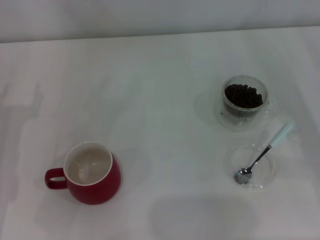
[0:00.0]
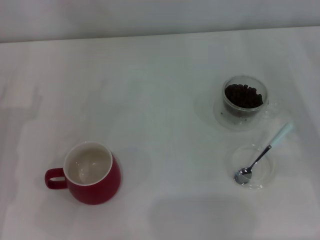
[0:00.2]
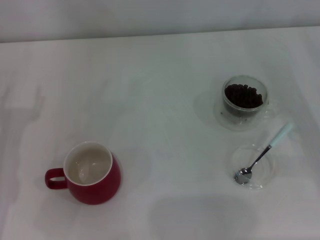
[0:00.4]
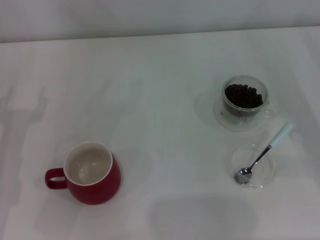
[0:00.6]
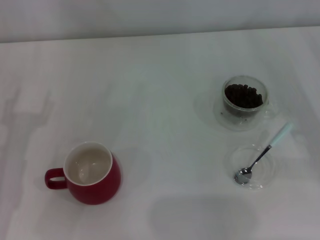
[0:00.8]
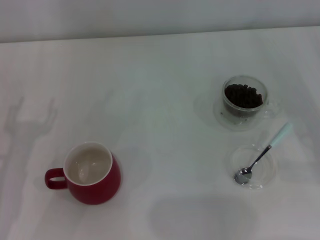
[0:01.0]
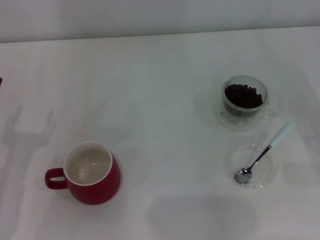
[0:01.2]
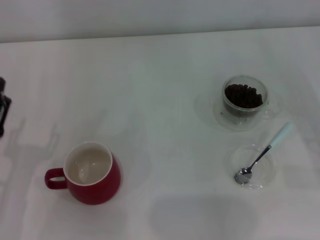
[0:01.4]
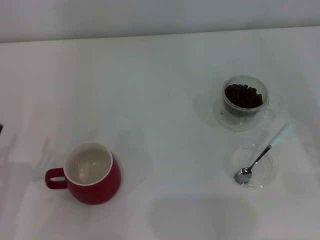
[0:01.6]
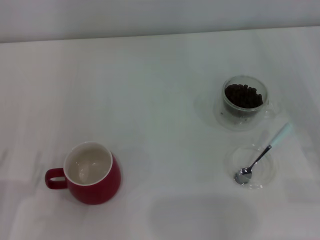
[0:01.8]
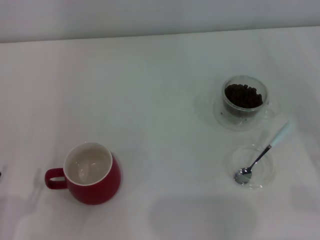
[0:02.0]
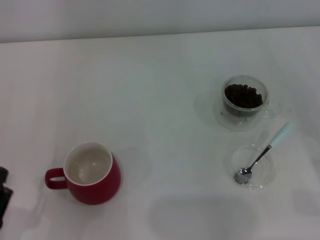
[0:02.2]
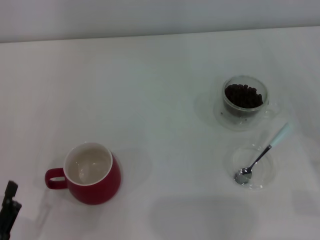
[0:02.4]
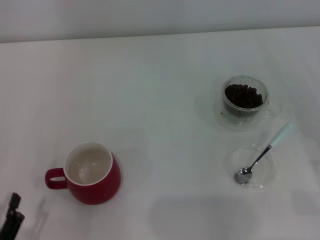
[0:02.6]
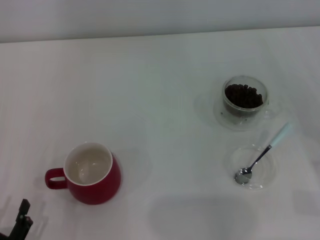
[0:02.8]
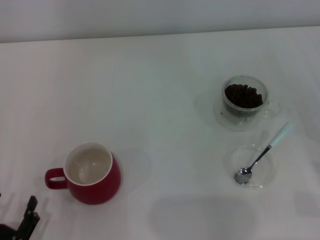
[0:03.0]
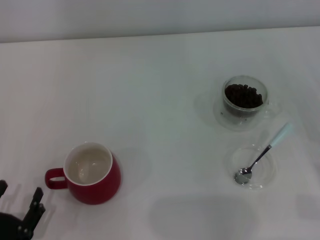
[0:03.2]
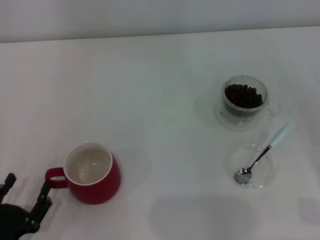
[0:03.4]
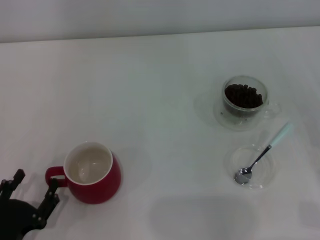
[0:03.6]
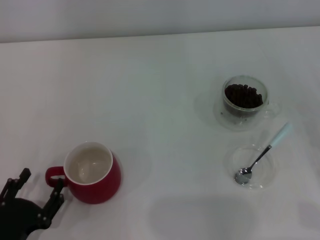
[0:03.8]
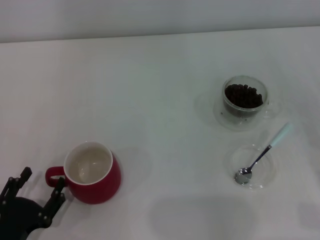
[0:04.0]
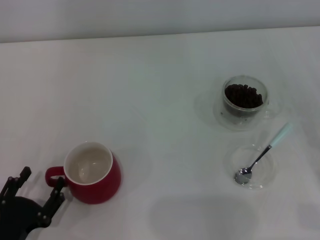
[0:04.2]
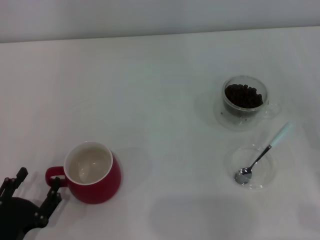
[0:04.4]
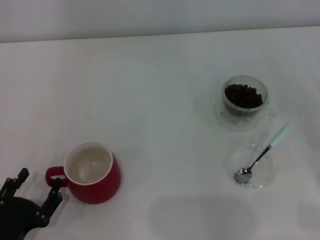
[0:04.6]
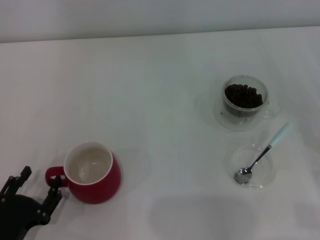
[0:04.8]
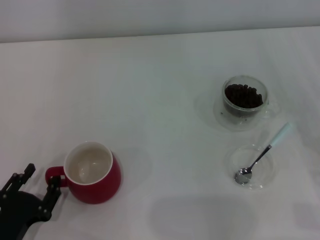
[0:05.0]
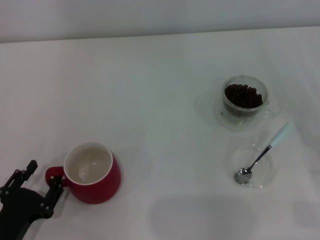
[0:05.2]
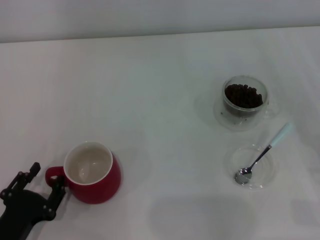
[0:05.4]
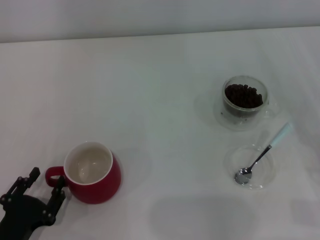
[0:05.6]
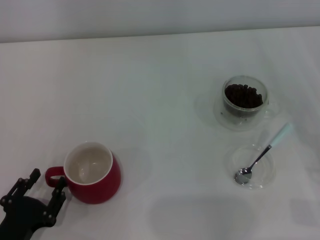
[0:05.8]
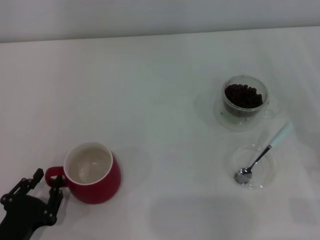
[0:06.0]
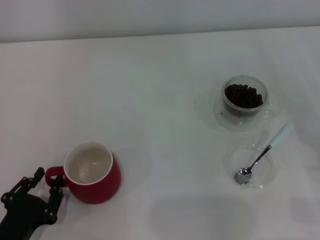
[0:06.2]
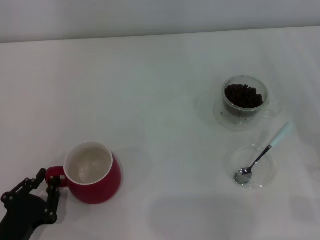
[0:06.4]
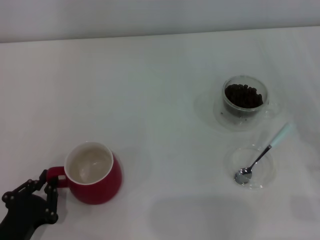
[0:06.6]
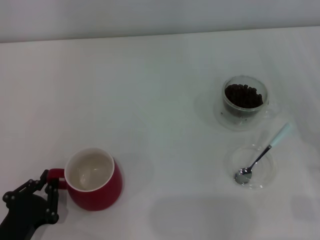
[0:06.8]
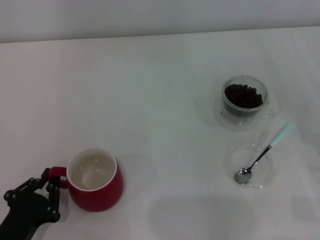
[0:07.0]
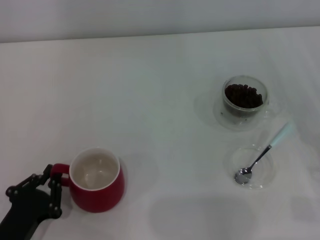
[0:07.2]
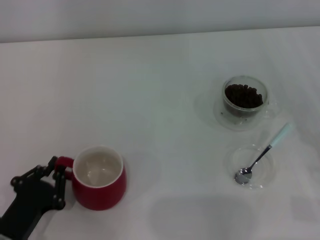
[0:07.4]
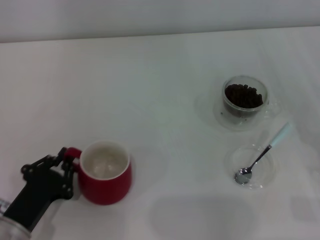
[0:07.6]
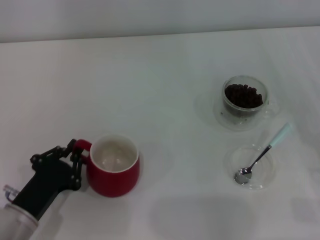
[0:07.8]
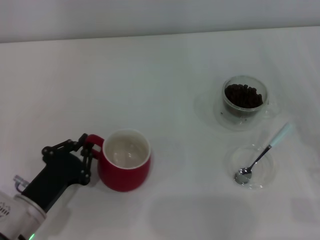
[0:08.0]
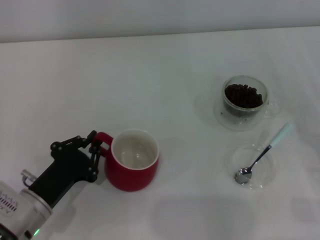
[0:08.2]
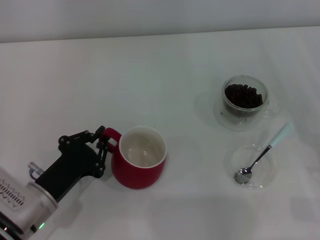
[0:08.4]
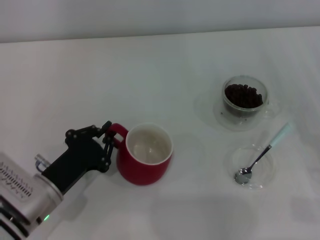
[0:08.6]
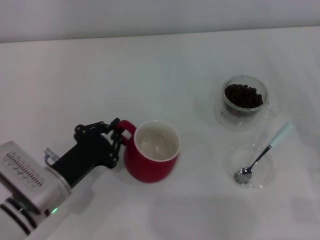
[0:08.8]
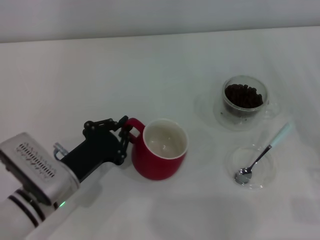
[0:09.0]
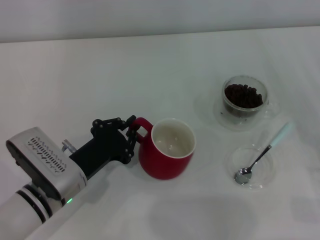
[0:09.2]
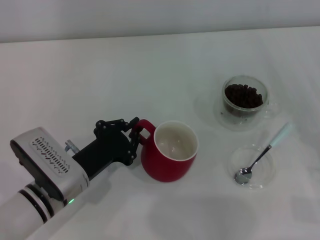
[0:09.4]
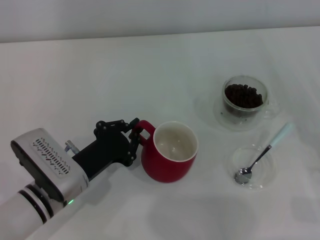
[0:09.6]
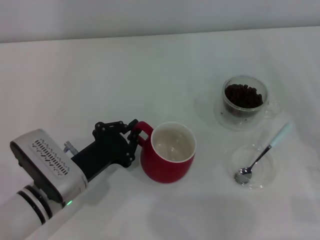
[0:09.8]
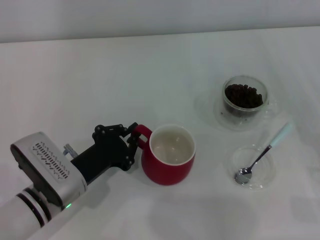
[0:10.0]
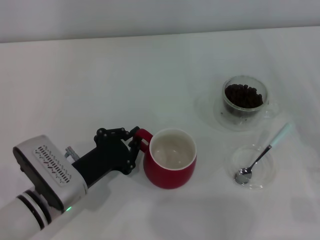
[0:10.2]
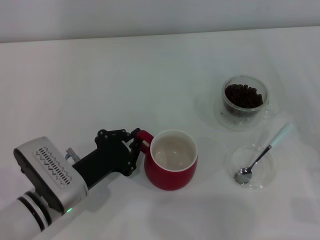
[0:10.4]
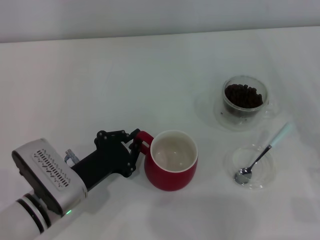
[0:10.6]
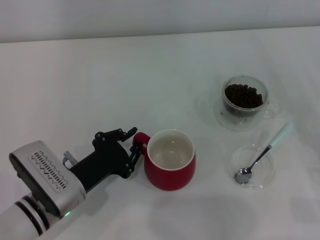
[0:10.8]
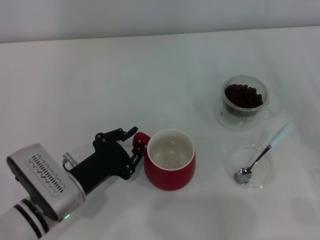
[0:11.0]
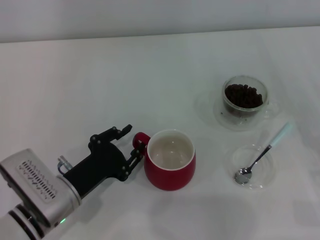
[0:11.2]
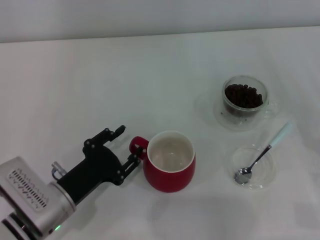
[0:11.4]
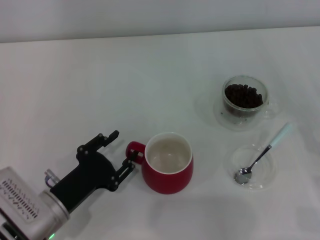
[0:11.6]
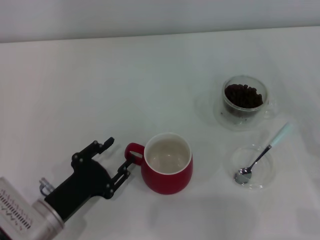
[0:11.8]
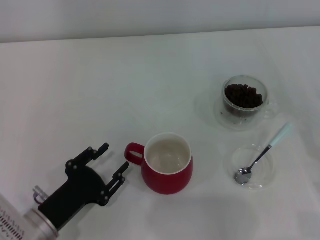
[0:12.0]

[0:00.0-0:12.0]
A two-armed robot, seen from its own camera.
Task of the whole recording: Use a blue spoon to take out the coffee beans from the glass and pour them into the red cup.
Step, 0:00.0 to 0:12.0: Move the cup to the center of view with the left gripper.
0:01.6 to 0:03.0: The left gripper shifts about 10 cm backward and downward.
0:03.0 to 0:06.0: The grippers move only a little.
0:06.0 to 0:07.6: The left gripper closes up.
0:07.6 to 0:09.0: The left gripper is displaced forward and to the right by roughly 10 cm.
0:09.0 to 0:10.4: The grippers move only a little.
0:10.4 to 0:12.0: The left gripper moves backward, approximately 5 cm, and opens up.

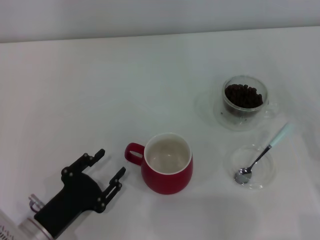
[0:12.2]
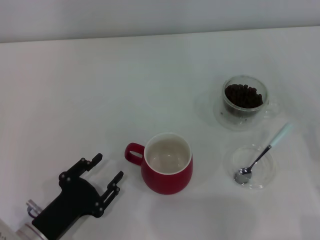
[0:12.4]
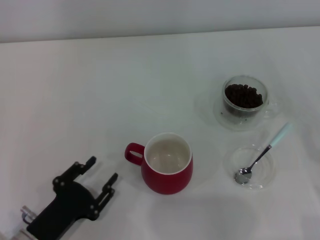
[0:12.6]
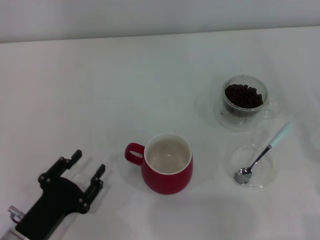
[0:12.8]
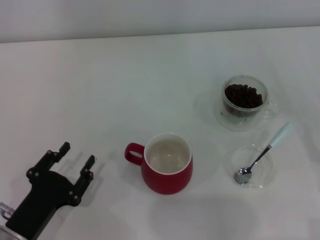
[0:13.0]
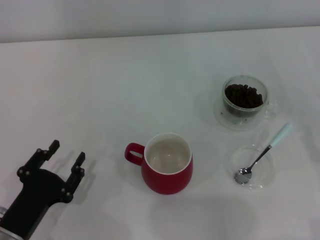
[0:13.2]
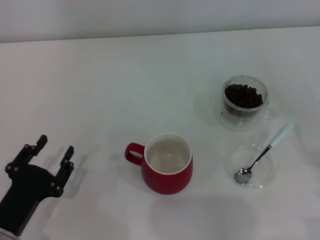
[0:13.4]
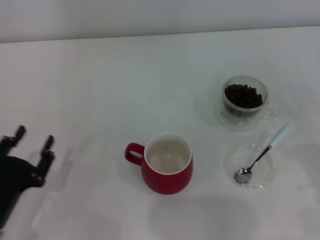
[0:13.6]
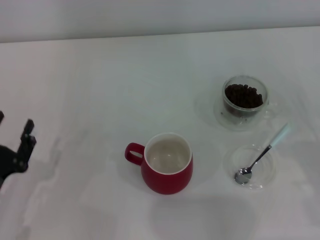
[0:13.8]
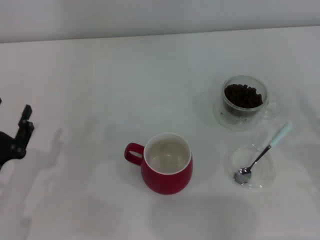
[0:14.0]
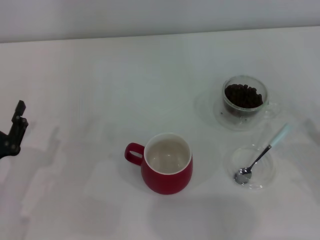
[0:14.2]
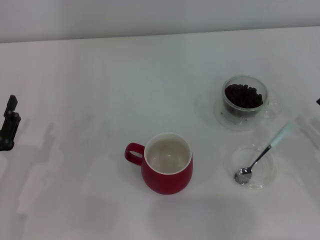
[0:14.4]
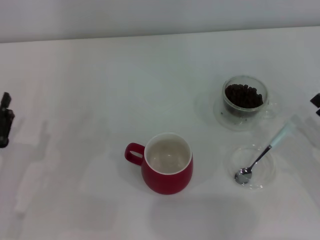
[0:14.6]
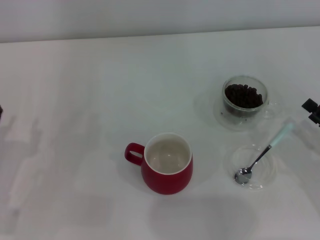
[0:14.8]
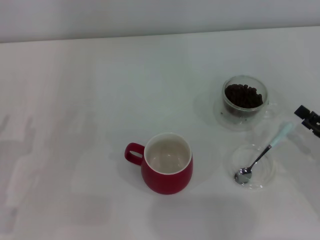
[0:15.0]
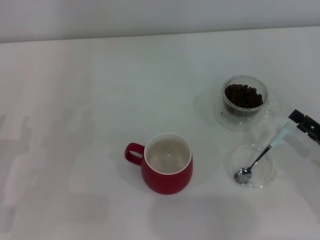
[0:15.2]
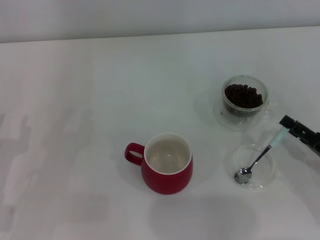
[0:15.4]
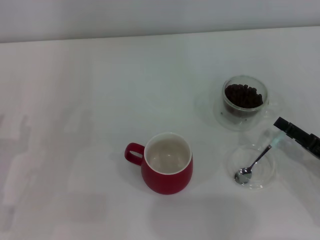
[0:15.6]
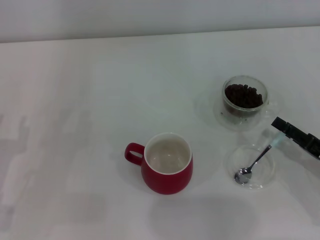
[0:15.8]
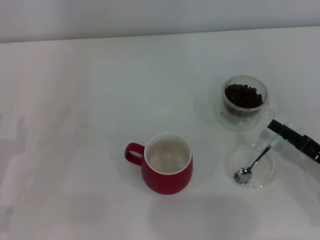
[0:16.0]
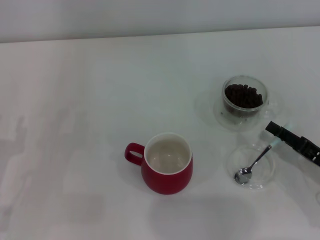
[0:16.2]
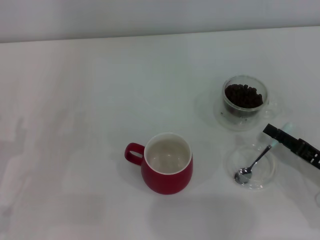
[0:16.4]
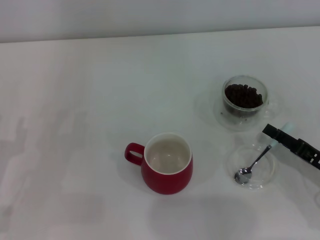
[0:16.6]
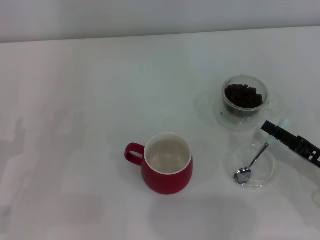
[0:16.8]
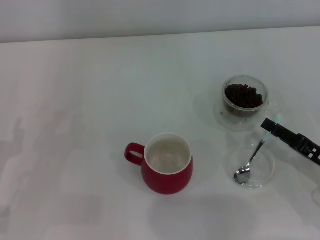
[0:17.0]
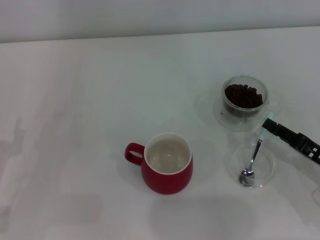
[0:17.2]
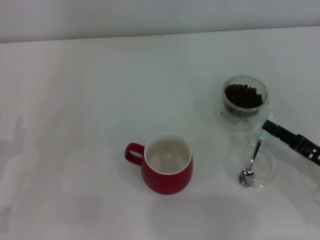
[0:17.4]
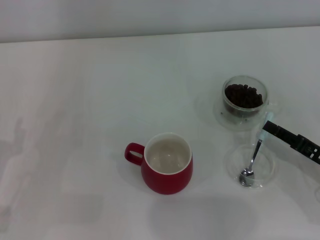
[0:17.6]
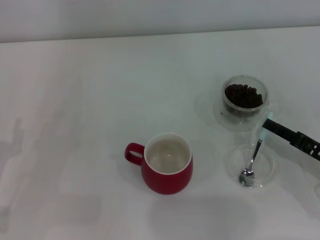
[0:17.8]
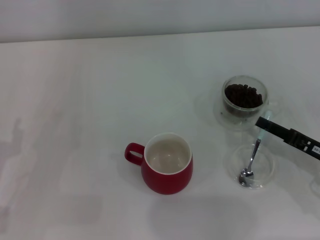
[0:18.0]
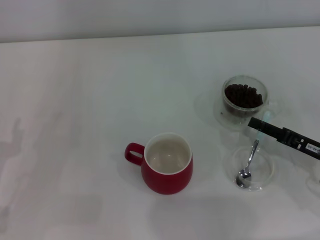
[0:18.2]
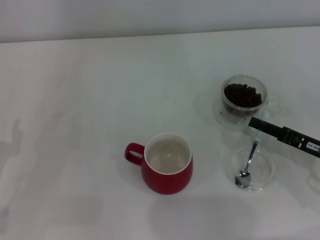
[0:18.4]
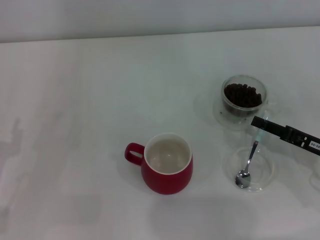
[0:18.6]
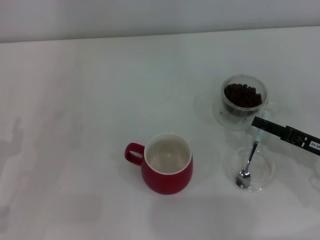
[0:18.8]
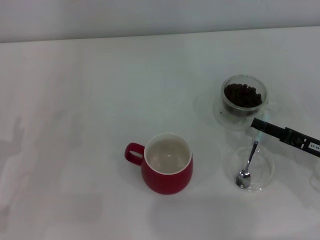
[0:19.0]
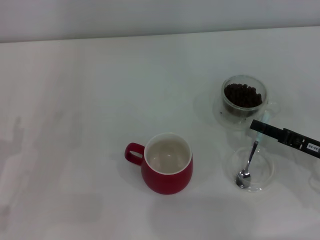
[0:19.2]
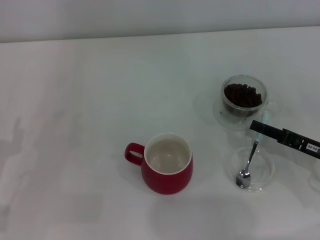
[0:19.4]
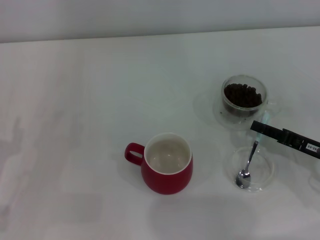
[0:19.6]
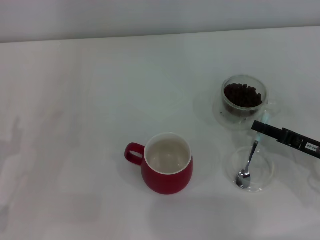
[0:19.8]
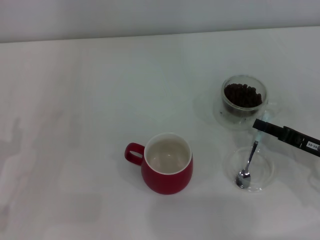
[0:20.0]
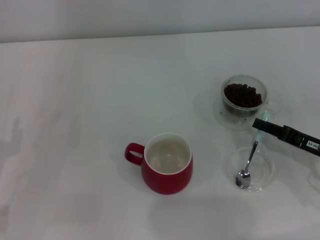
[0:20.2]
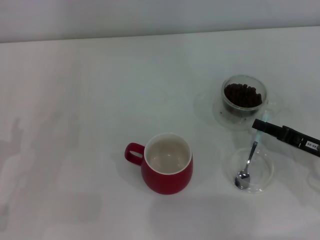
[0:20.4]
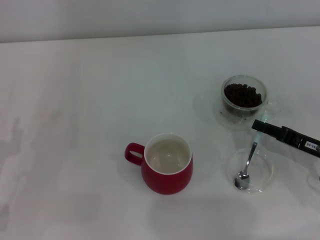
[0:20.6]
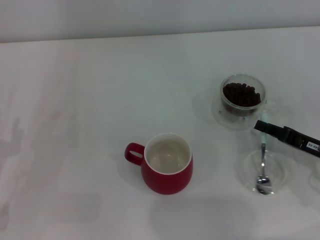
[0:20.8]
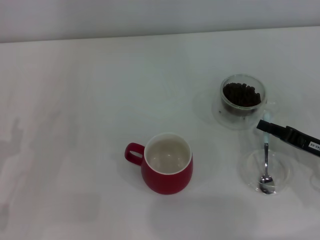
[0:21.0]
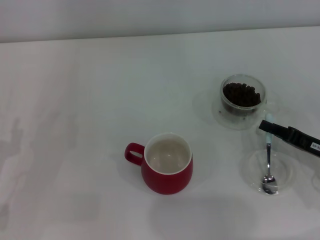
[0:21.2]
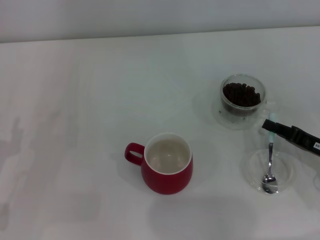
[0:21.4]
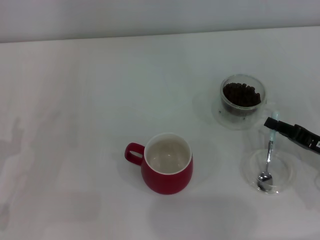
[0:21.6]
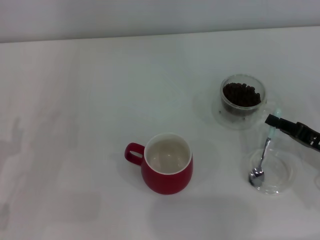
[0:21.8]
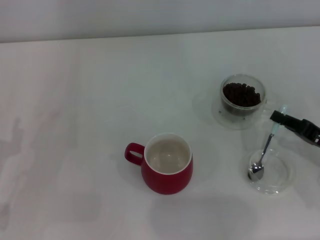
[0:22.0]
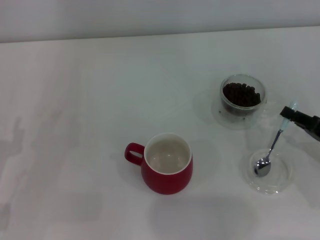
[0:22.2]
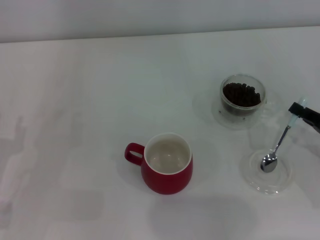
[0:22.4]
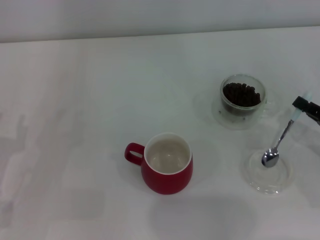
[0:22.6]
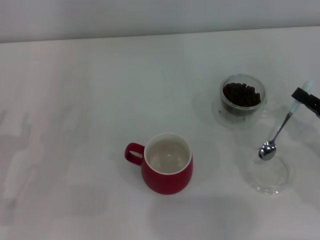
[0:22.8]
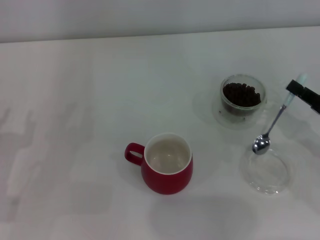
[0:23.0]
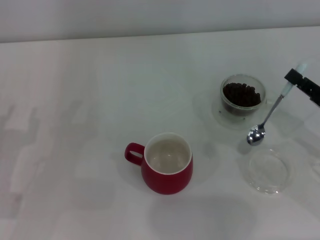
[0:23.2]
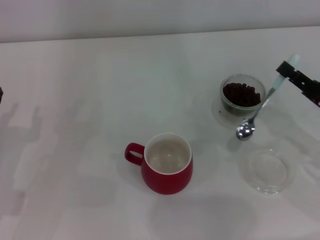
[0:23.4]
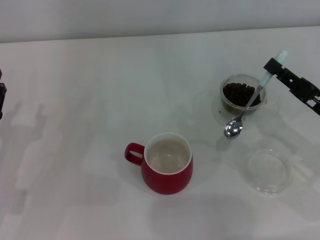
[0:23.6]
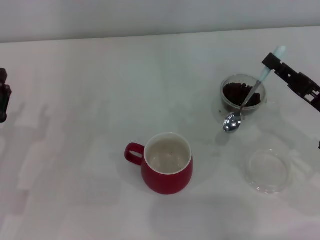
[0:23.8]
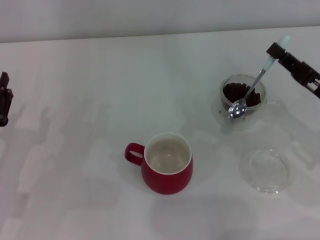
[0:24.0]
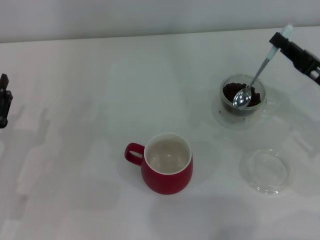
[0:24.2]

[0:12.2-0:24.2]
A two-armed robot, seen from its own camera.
Task of the whole recording: Use a blue spoon to take out the coffee beans from the glass and pour them into the red cup.
Step, 0:12.2 to 0:22.8: Pick up the spoon with the right gripper.
0:12.2 to 0:13.8: The left gripper is displaced to the left by roughly 5 cm.
0:15.2 to 0:18.2: There are only small adjustments of the grippers.
0:18.2 to 0:19.8: Neither gripper changes place.
0:19.8 to 0:21.2: The right gripper closes.
0:21.2 to 0:22.6: The grippers make only small movements.
0:22.6 to 0:24.2: The right gripper travels forward by roughly 5 cm.
